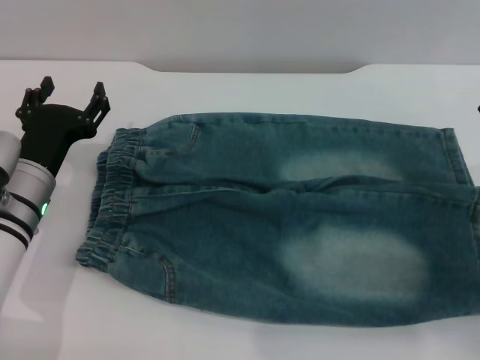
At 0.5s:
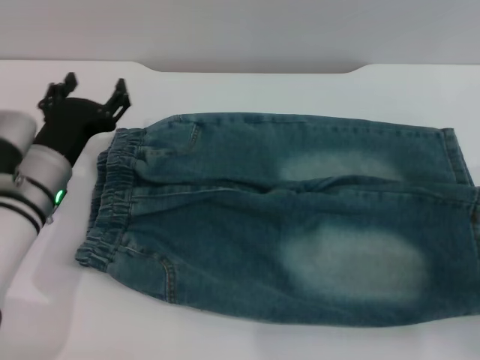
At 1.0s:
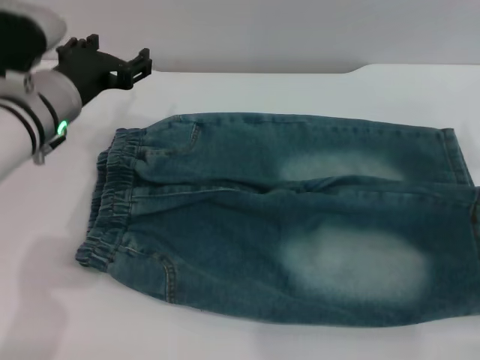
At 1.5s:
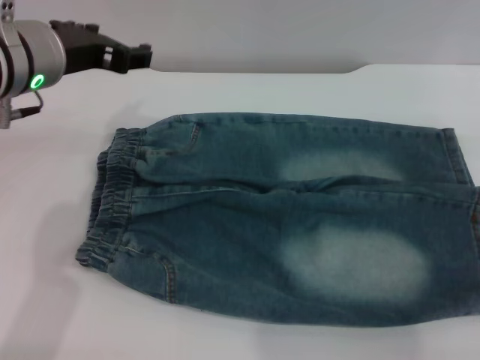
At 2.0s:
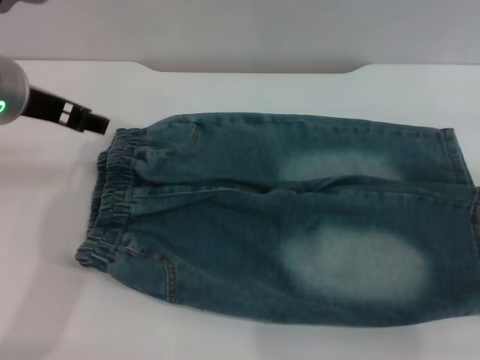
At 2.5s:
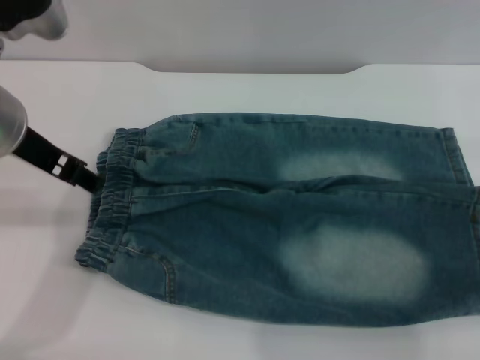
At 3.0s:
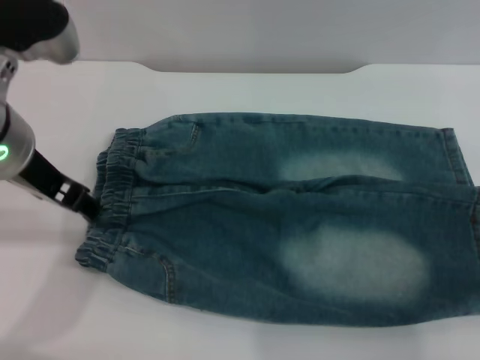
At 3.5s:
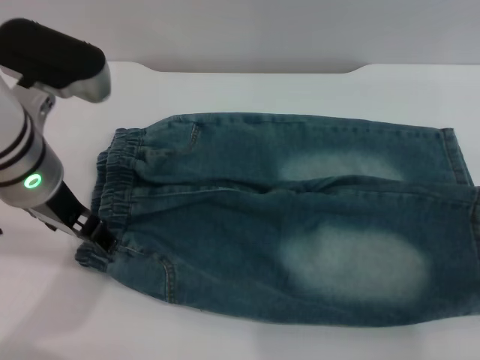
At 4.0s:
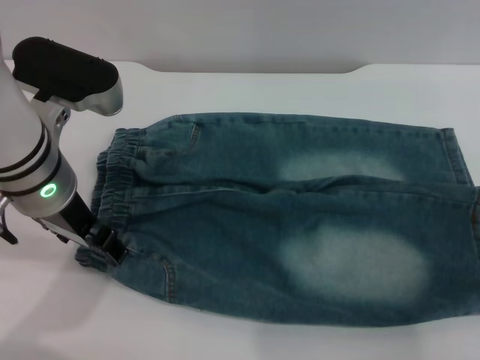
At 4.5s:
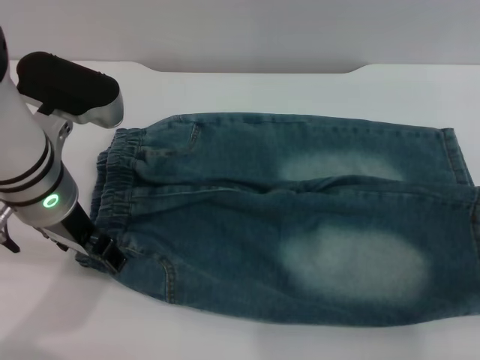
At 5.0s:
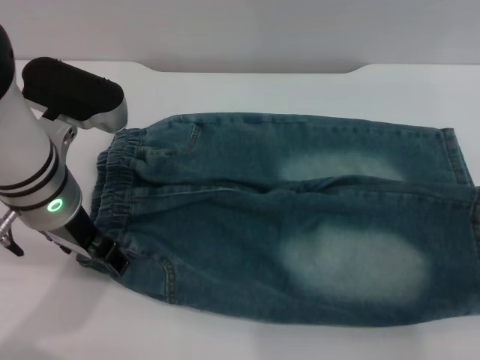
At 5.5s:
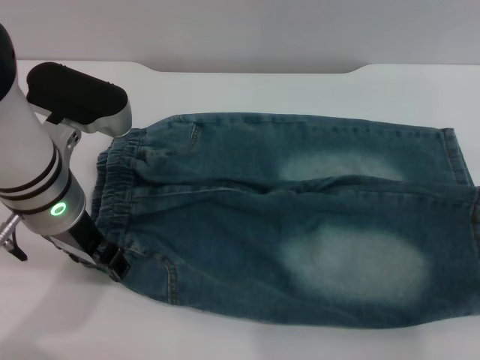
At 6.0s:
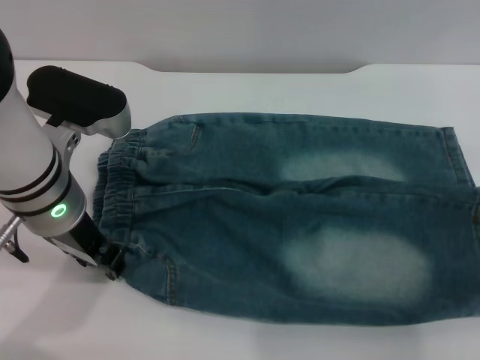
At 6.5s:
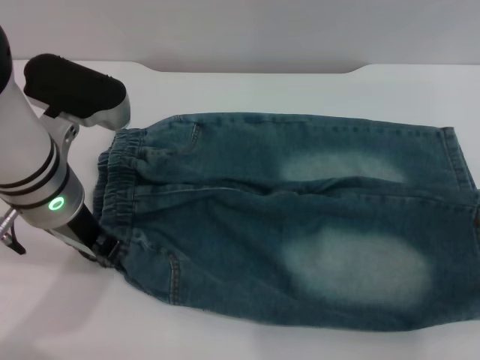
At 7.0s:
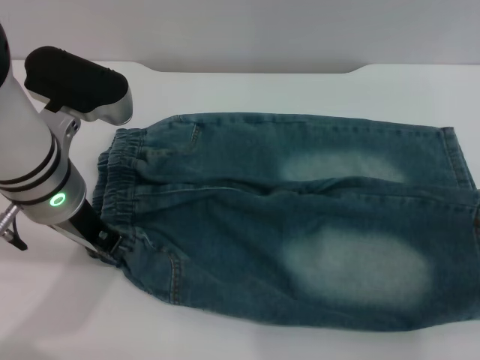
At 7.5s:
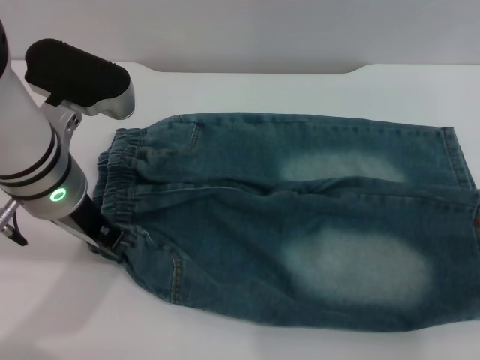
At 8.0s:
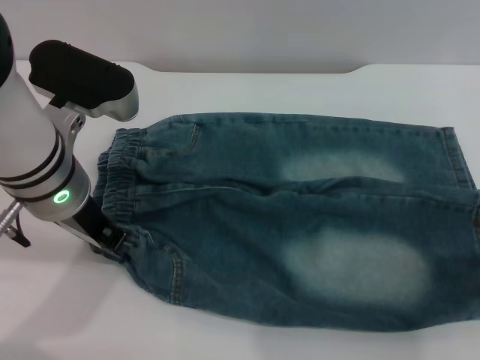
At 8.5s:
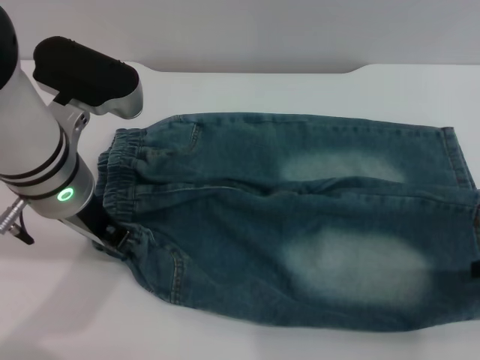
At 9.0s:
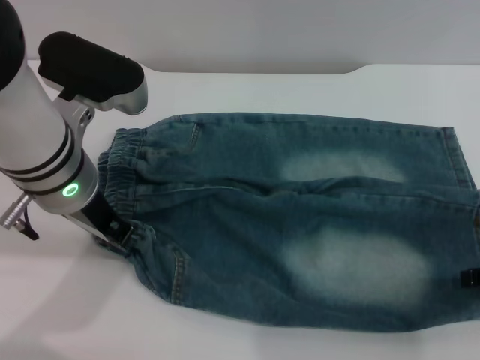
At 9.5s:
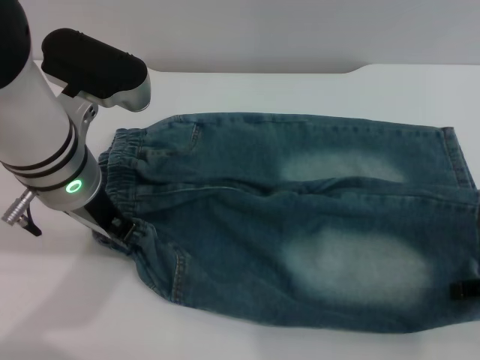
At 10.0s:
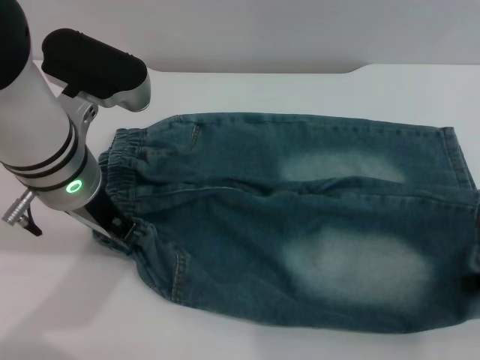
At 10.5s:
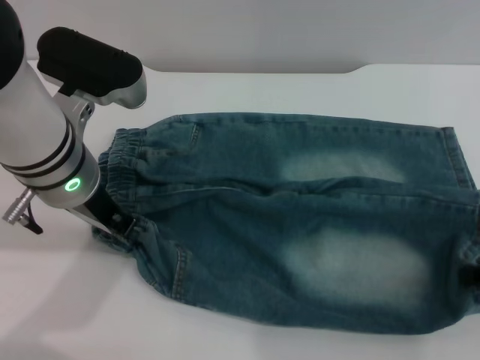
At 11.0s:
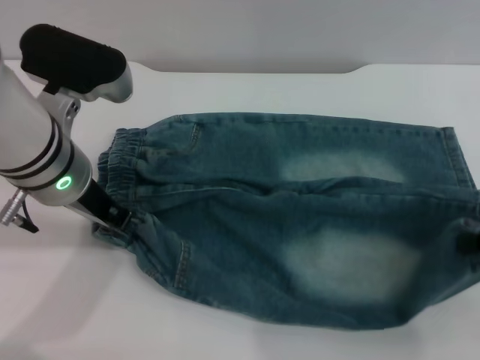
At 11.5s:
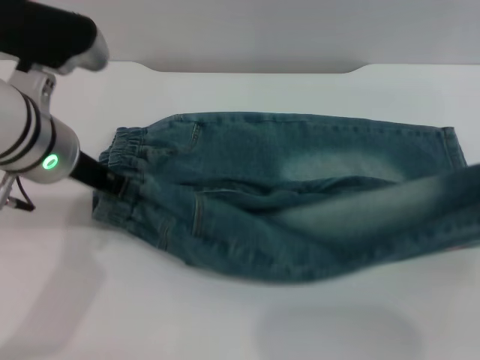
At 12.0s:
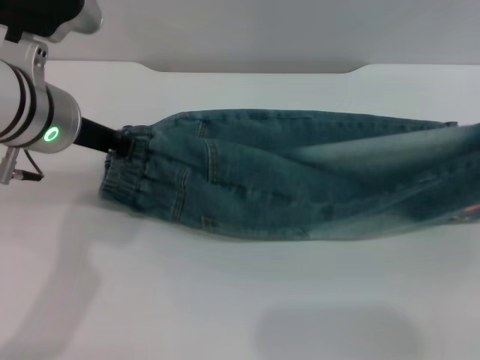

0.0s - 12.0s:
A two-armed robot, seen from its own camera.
0.0s - 2.0s: The left gripper is displaced upward by some 20 cm.
2.0s - 4.0s: The left gripper shifts by about 5 cm.
4.0s - 6.0s: The left gripper closes its fingers.
6.0s - 8.0s: The left gripper closes its fingers.
8.0s - 10.0s: There are only small adjustments of the grippers.
10.0s - 12.0s: The right gripper goes some 5 cm upward, and closes up.

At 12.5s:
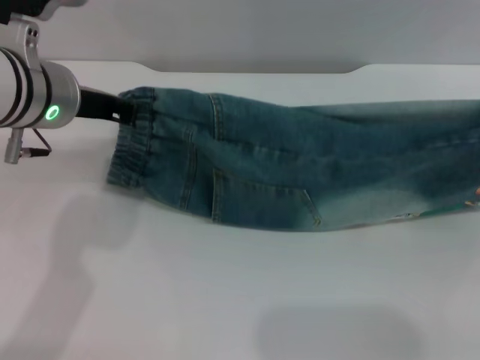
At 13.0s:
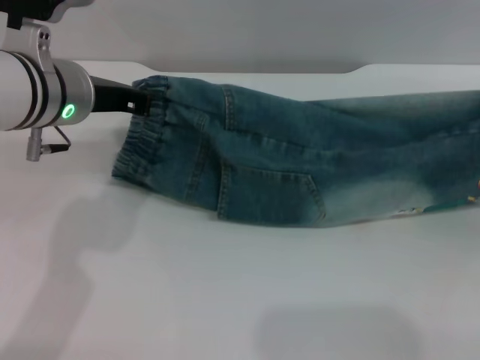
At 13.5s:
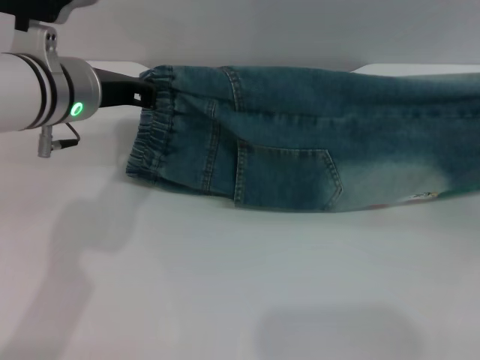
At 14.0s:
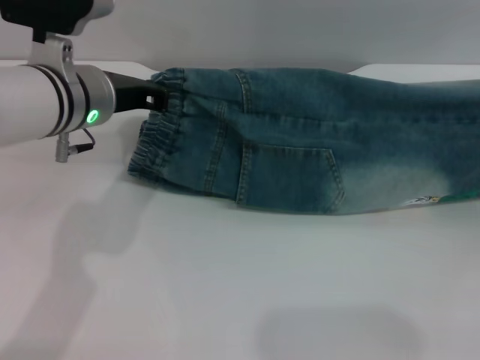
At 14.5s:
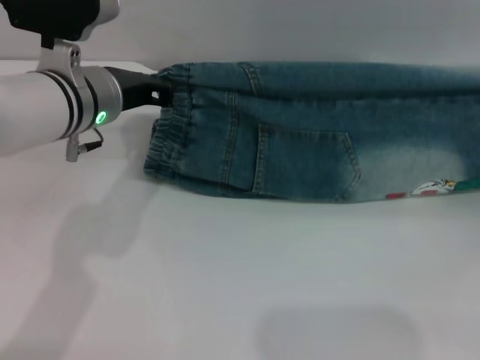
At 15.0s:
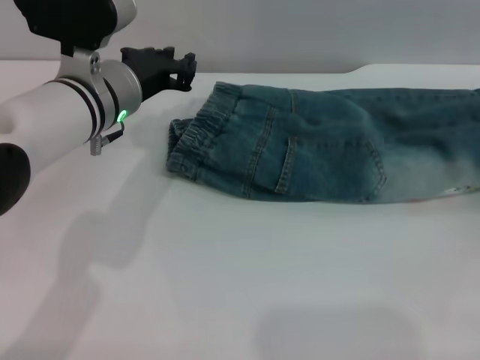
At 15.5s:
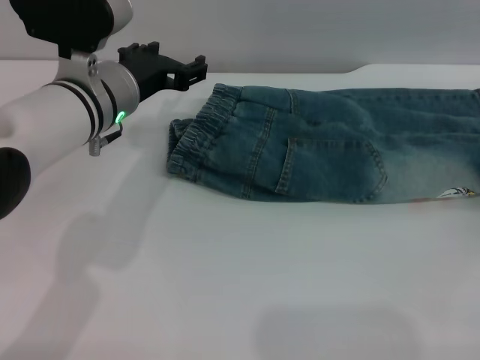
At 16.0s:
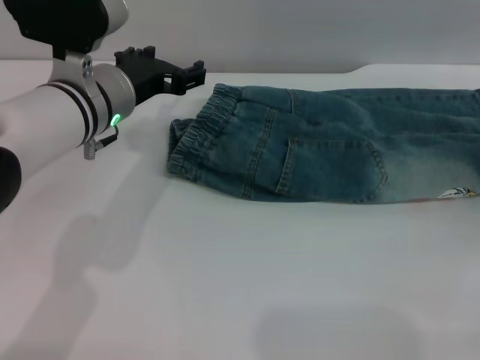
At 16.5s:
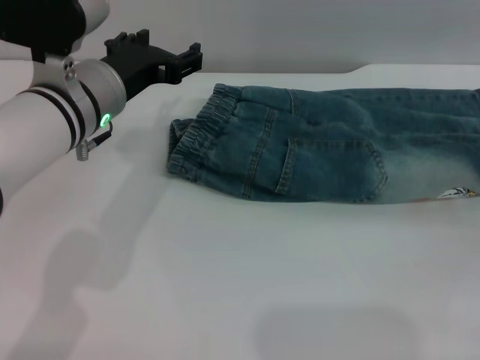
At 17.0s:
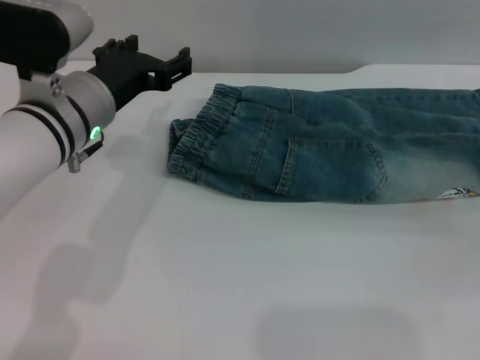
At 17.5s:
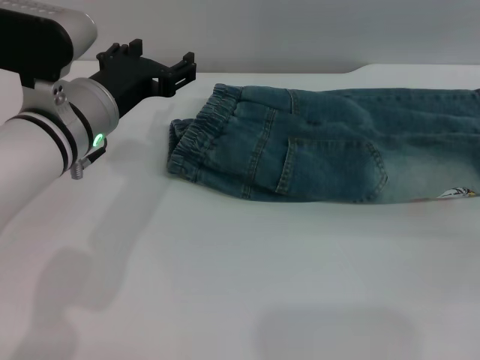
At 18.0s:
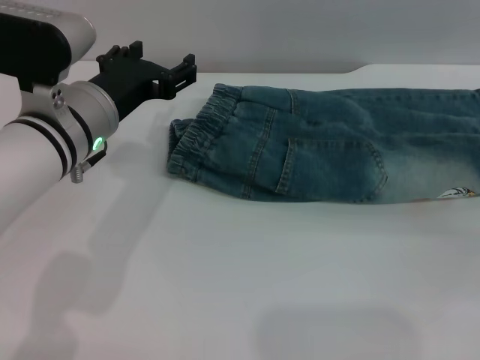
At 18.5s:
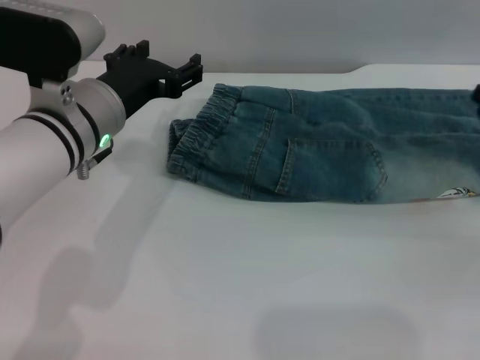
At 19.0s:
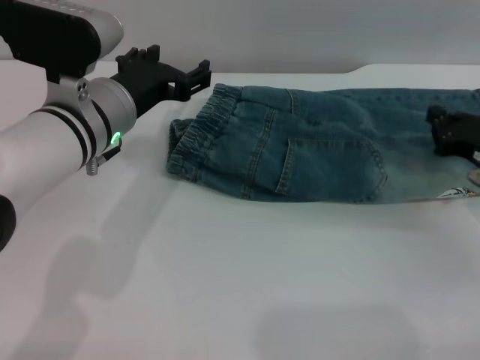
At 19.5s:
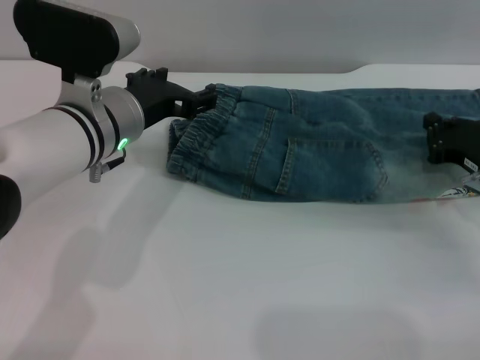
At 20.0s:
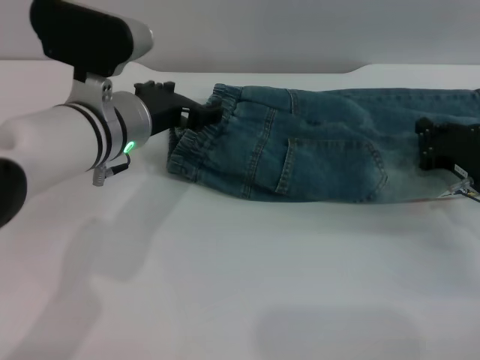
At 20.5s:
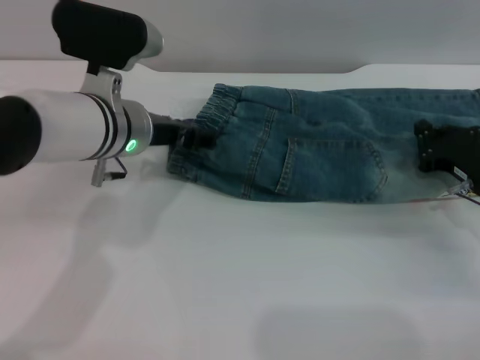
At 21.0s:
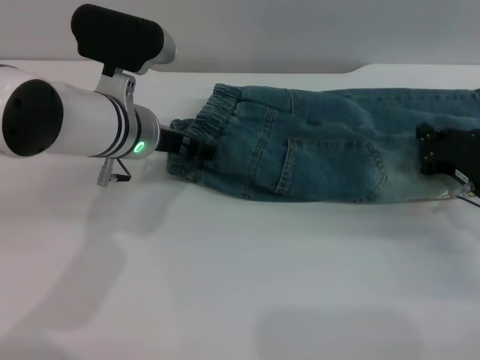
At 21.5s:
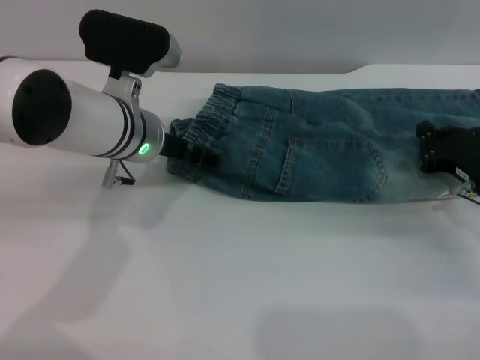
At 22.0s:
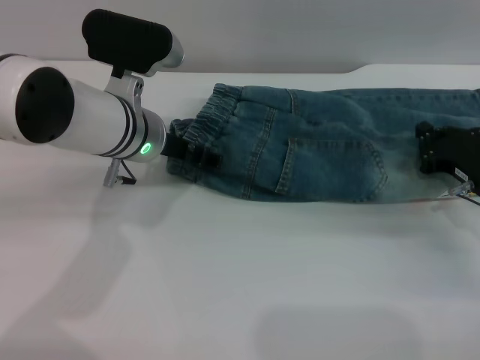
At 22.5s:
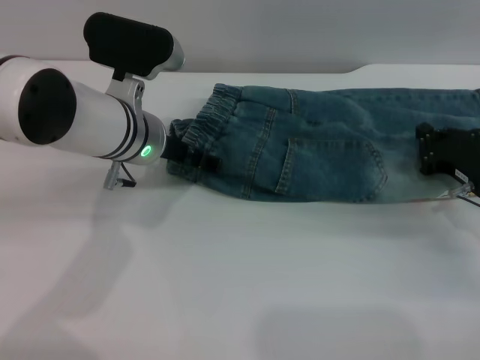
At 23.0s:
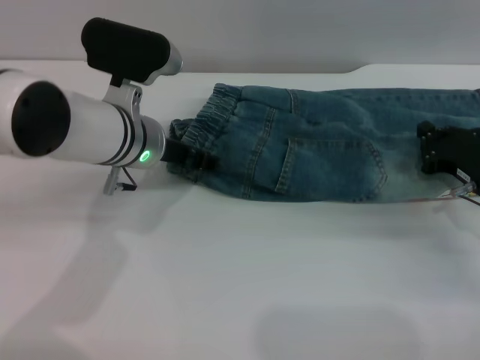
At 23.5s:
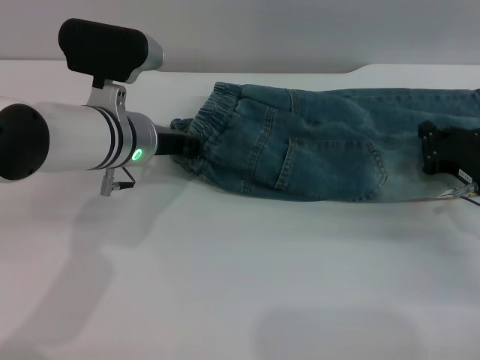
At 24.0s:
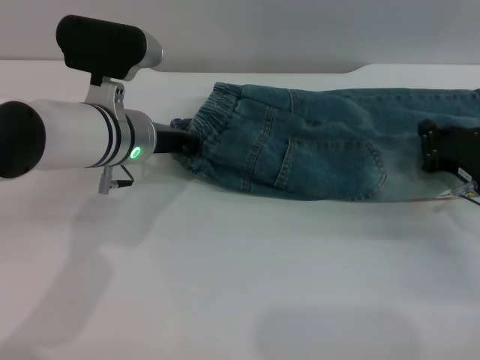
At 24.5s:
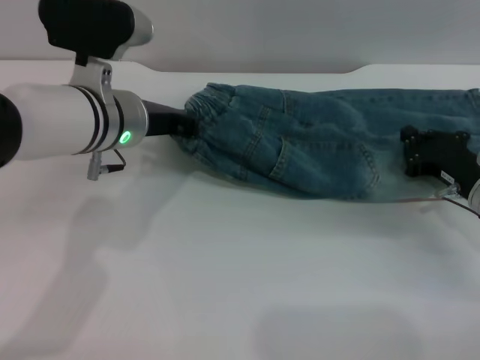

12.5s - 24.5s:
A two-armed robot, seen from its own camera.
Step, 12.5s - 15.0s: Fold the bottom of the pants upward with both grippers.
12.5s - 14.5s: The right gripper is displaced downward by roughly 5 cm. The left gripper moves roughly 5 cm.
14.5s - 16.5s: The right gripper opens, while the left gripper opens its fingers.
16.5s - 18.5s: The right gripper closes its fingers.
18.5s - 20.5s: The right gripper moves about 5 cm.
20.5s - 22.5s: There are only small adjustments of the grippers.
22.5s - 24.5s: The left gripper closes up.

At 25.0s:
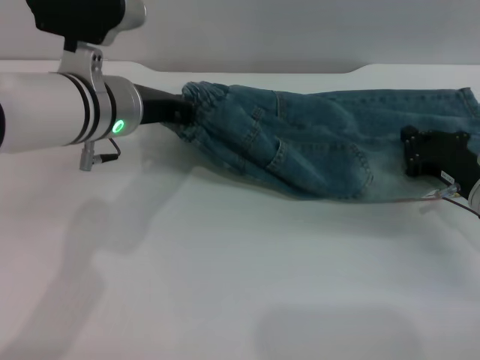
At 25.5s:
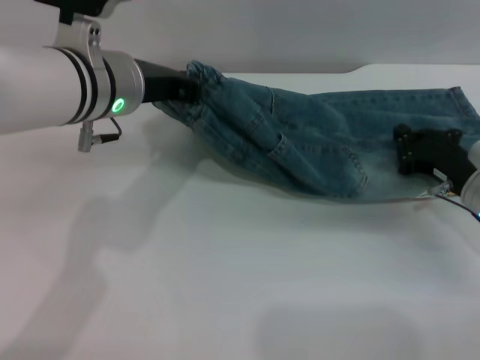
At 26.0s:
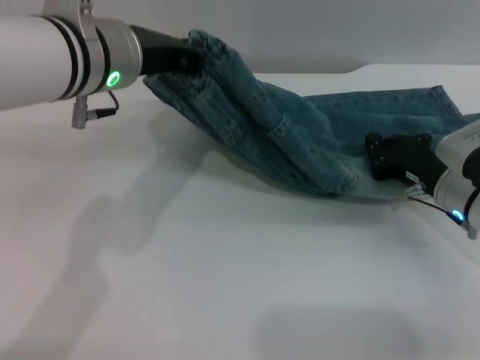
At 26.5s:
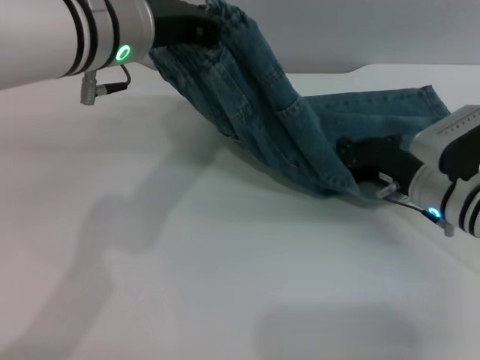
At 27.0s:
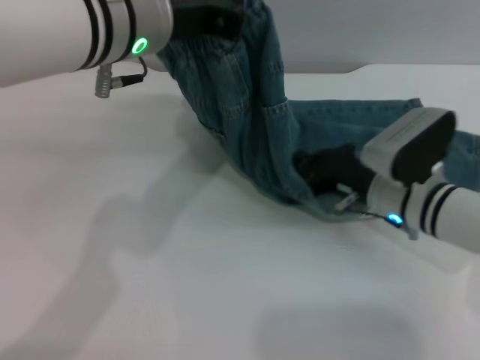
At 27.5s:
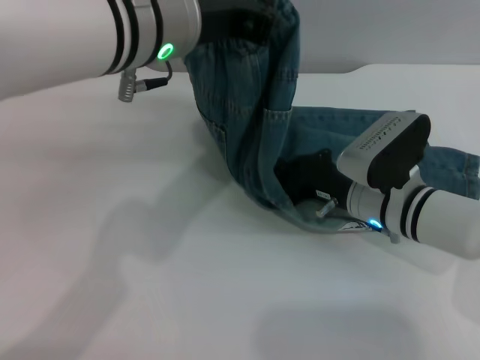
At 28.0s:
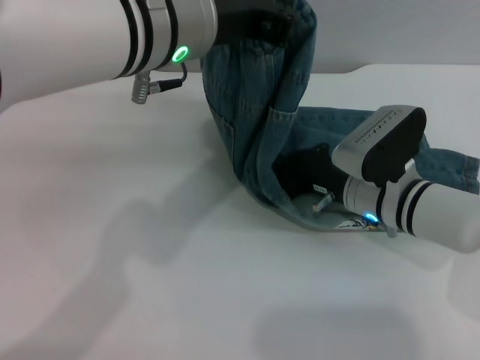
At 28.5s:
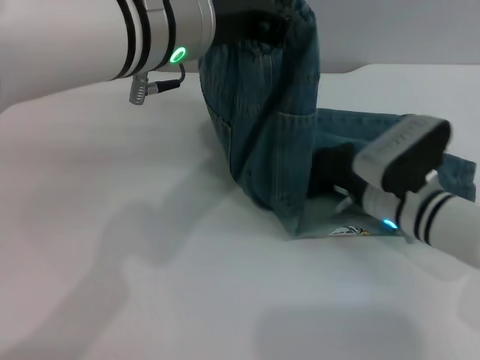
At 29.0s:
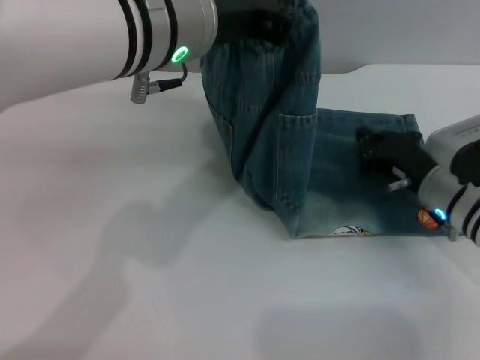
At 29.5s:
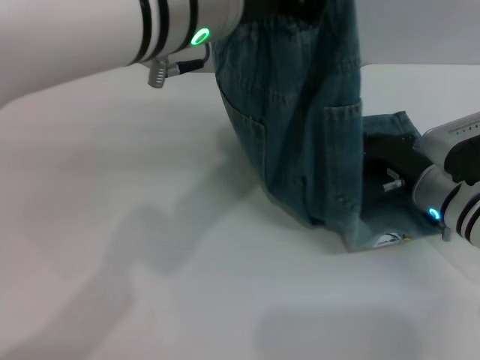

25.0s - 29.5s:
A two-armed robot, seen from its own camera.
25.0s - 27.0s: The right gripper heads to the left, covering about 10 cm. Meanwhile the left gripper goes about 10 cm upward.
27.0s - 29.5s: The left gripper ends up about 5 cm from where it was.
